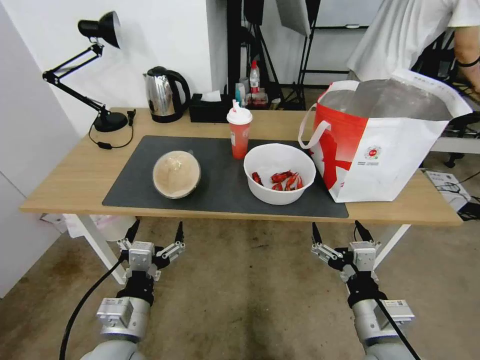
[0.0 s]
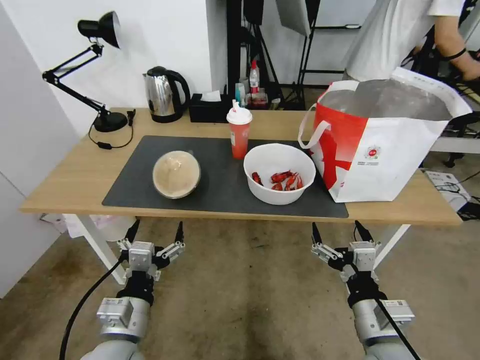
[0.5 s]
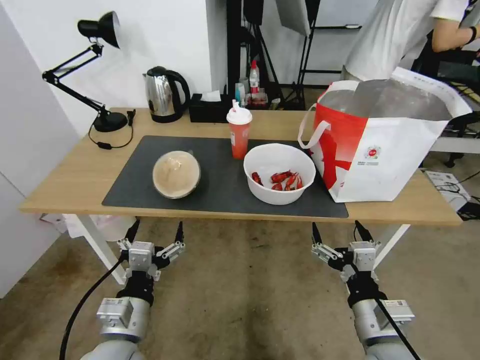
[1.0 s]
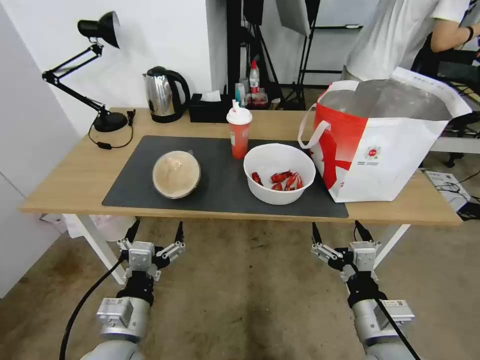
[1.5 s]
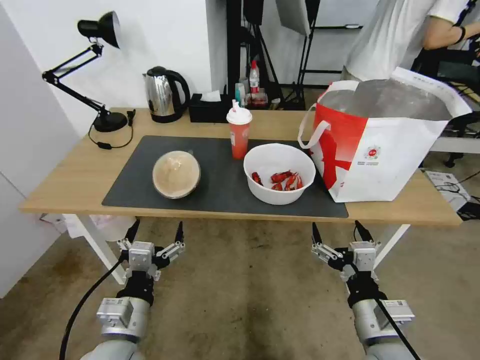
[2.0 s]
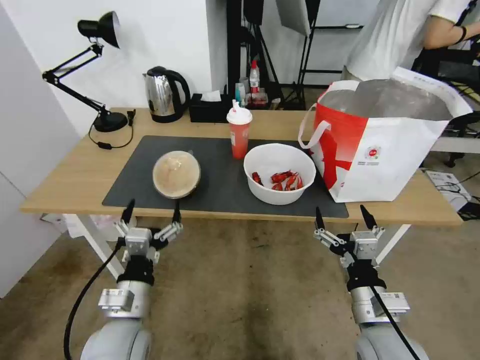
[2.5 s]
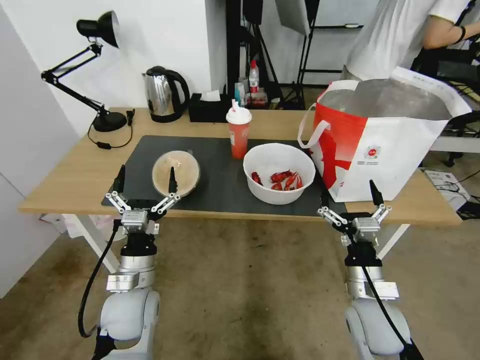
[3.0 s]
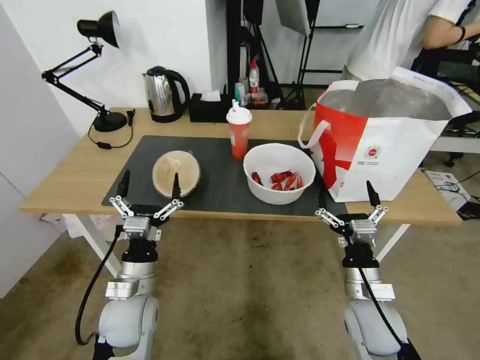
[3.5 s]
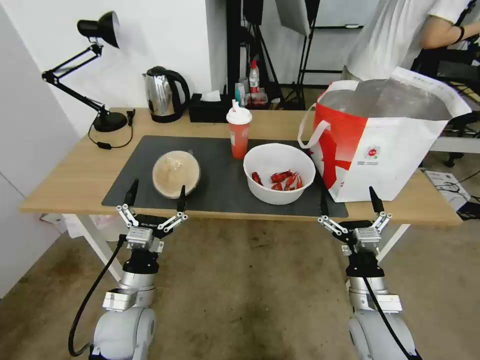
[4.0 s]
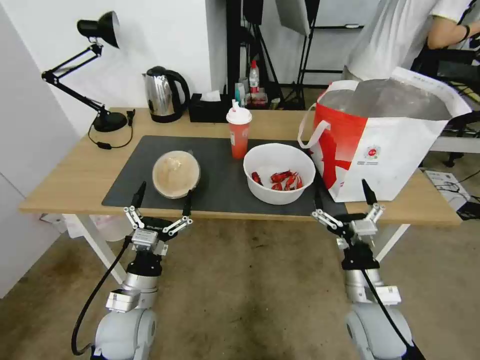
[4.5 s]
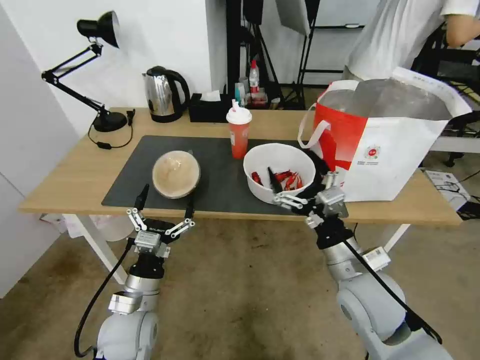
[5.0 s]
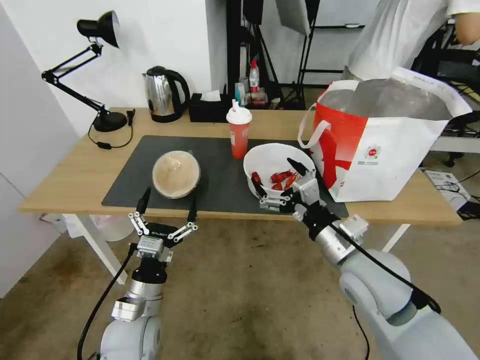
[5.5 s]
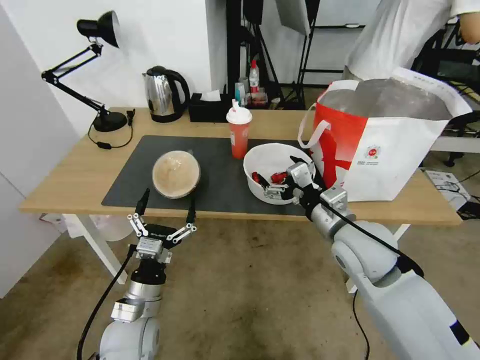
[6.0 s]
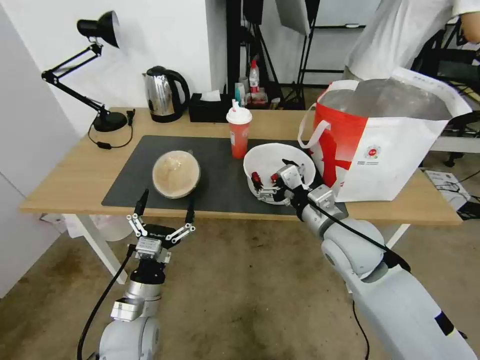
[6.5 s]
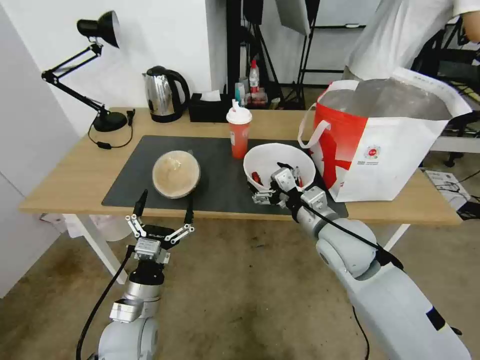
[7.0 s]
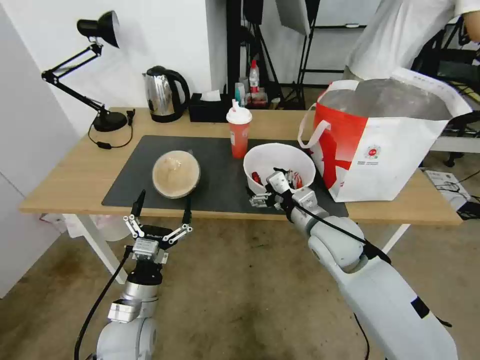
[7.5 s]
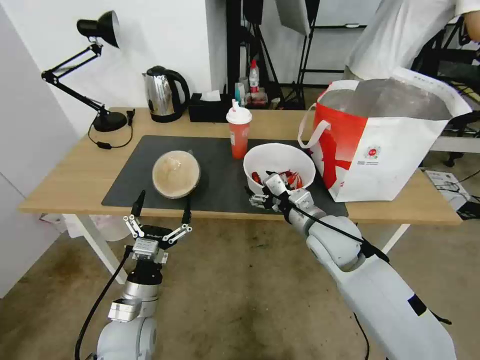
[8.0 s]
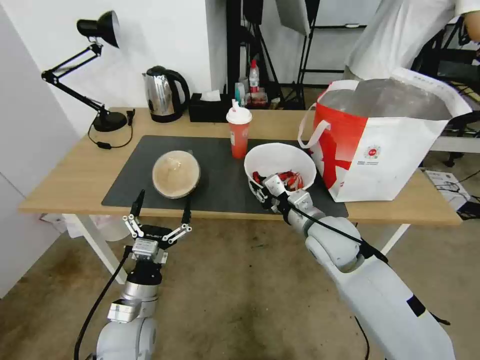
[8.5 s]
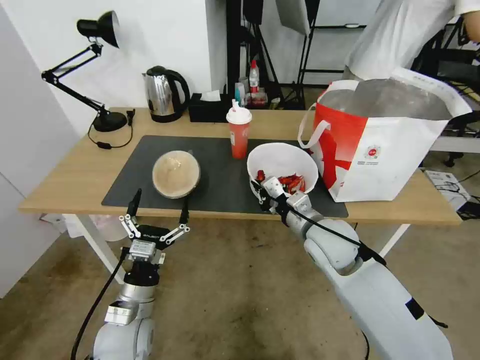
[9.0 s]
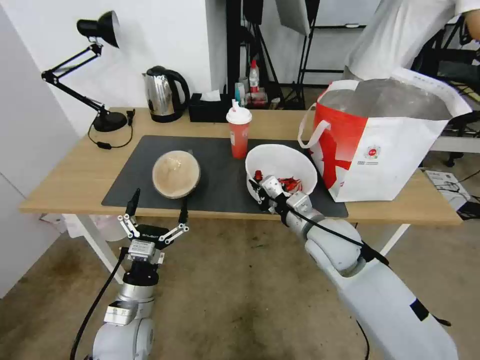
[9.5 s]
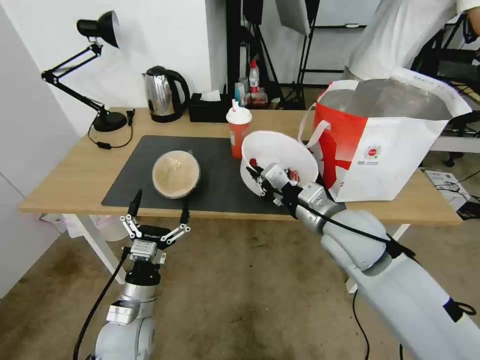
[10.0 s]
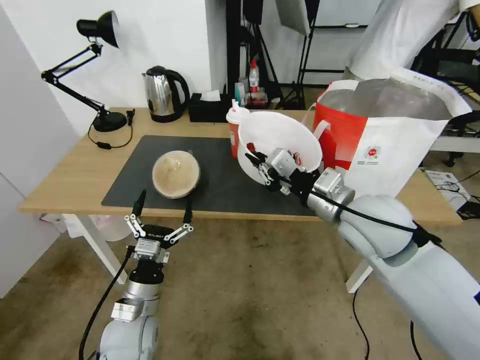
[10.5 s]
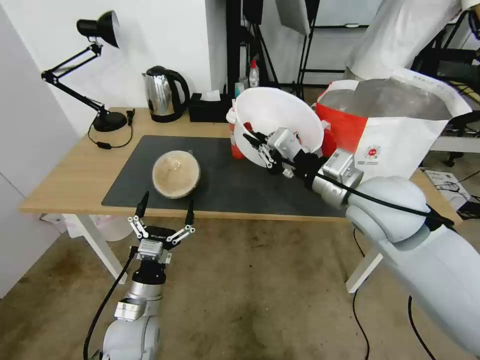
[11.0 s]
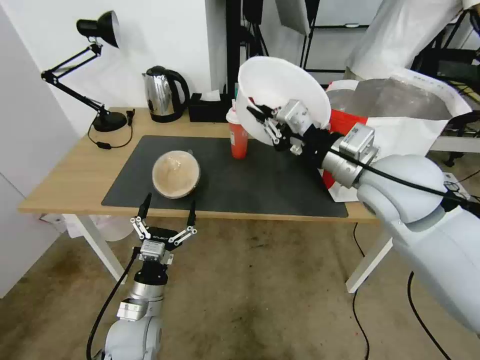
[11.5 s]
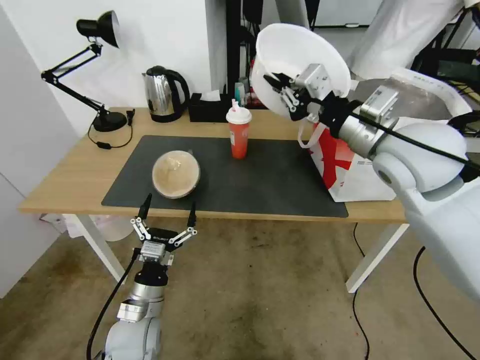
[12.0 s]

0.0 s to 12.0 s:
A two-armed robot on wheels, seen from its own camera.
Task of the whole recording: Pick up the trash from the table and place it into the takeout bag.
2.0 to 4.0 s: The left gripper moves forward, roughly 5 cm. Meanwhile the right gripper goes approximately 10 cm forward and downward.
4.0 to 6.0 s: The right gripper is displaced upward and forward by roughly 20 cm.
6.0 to 8.0 s: The right gripper moves approximately 5 cm.
8.0 to 10.0 s: The right gripper heads upward, covering some 5 cm, and closes its fingers.
10.0 to 12.0 s: The right gripper moves upward, some 15 cm.

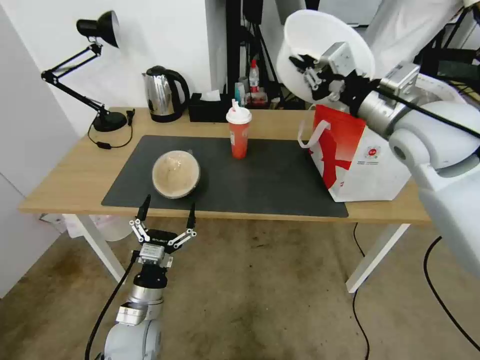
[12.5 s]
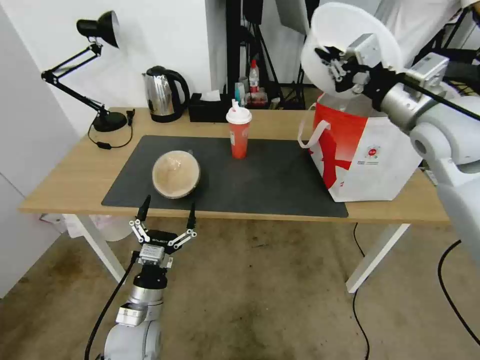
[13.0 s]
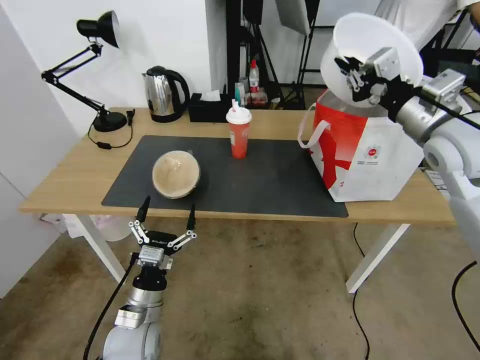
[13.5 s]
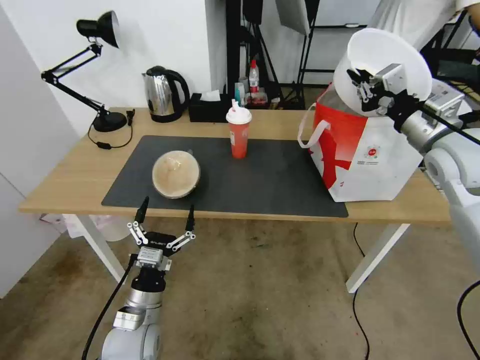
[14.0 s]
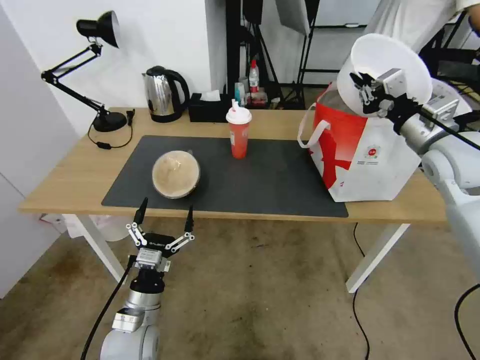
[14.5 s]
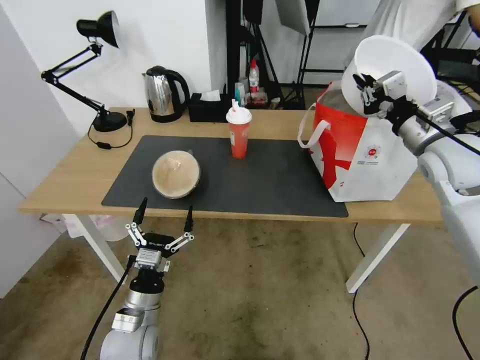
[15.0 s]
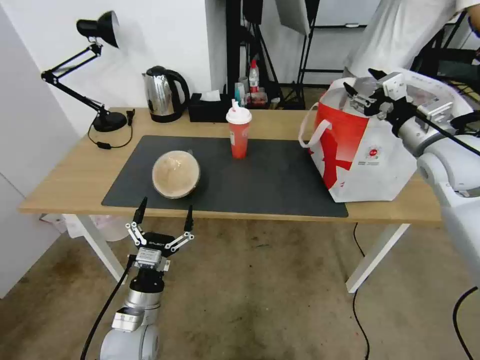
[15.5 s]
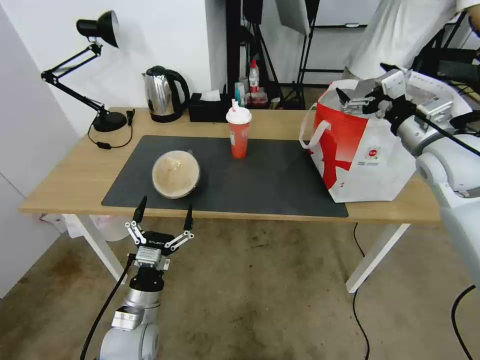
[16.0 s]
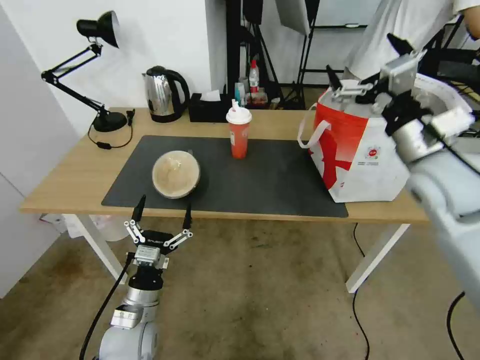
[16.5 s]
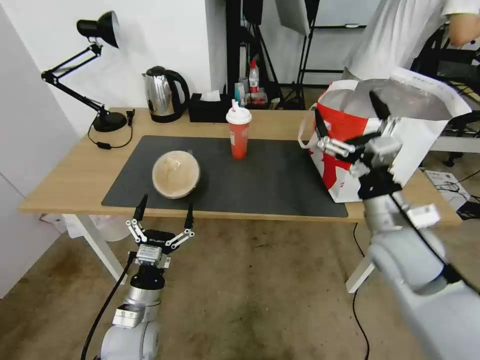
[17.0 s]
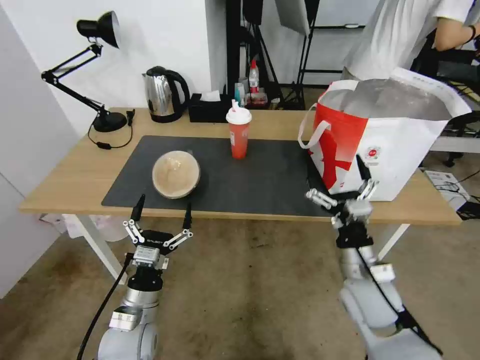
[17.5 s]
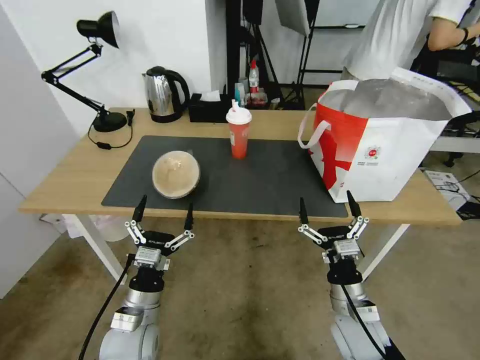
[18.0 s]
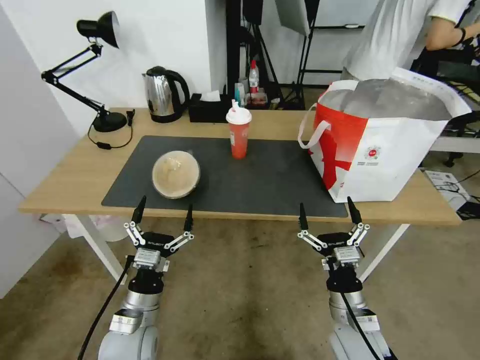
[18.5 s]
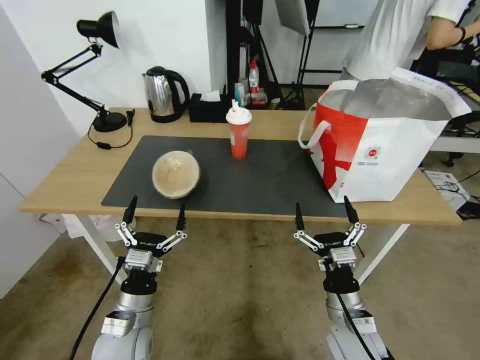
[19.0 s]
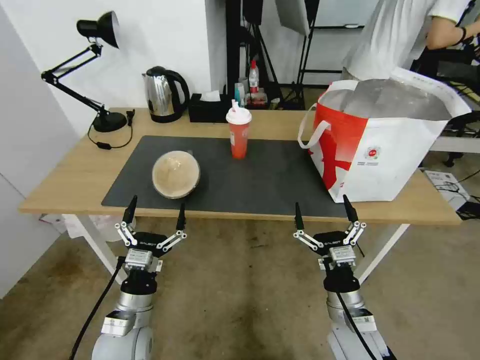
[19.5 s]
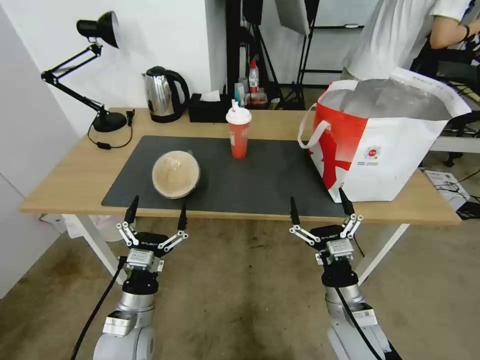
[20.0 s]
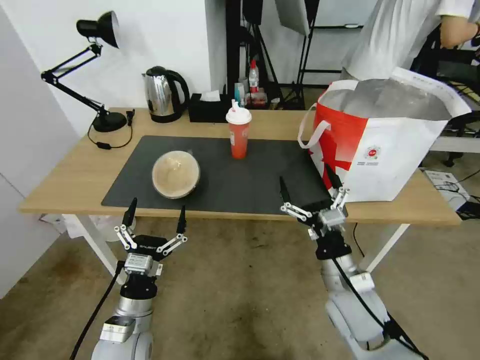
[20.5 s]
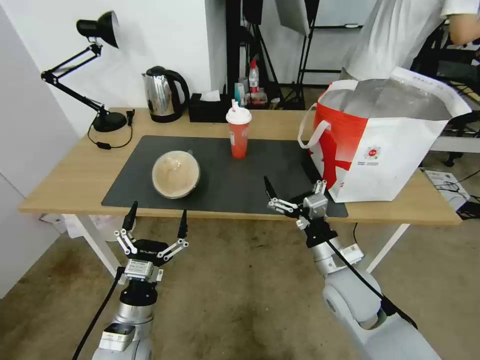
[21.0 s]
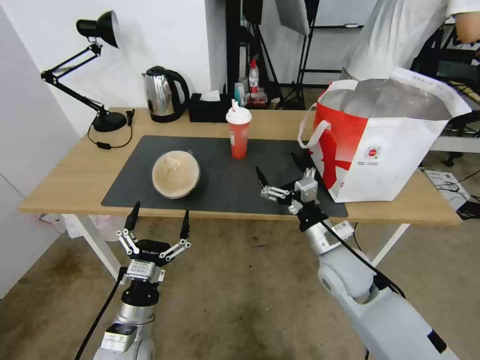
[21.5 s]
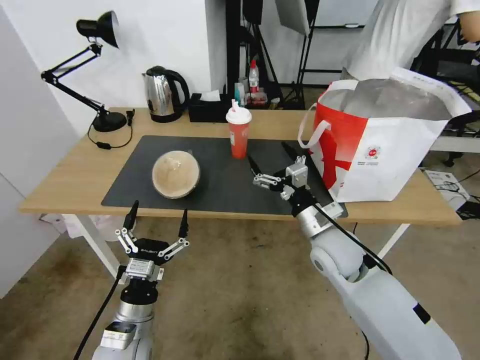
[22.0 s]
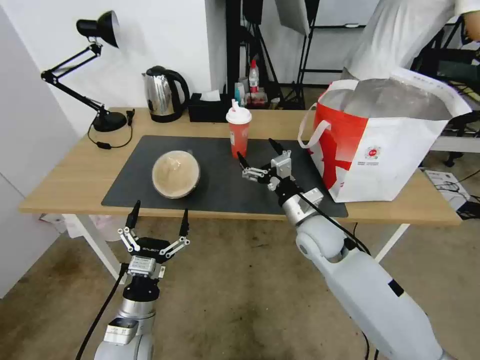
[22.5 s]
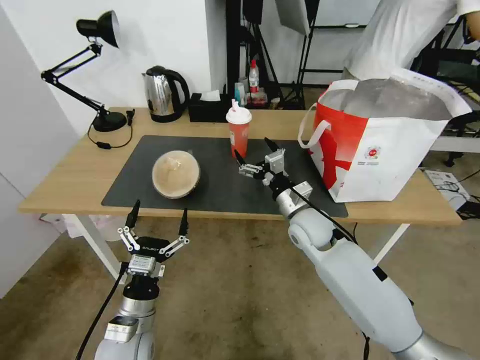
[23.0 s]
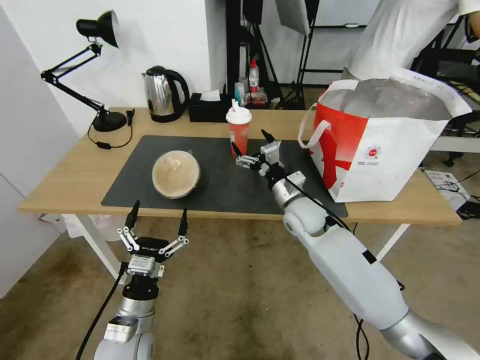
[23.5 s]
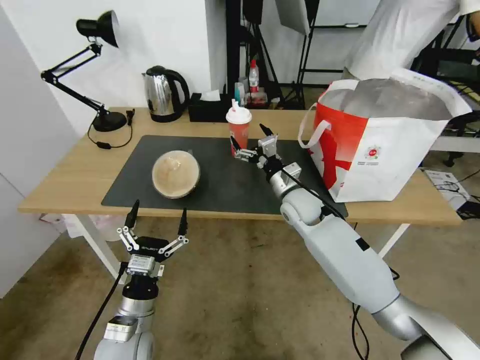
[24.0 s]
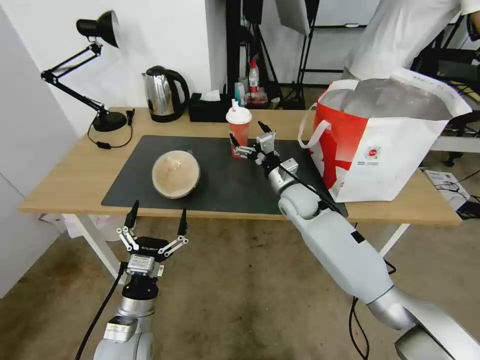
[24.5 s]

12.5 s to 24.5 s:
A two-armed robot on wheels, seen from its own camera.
Task of the whole recording: Pick up the trash from the table and place it into the takeout bag.
12.5 to 14.5 s: The right gripper travels to the right and downward by roughly 10 cm.
14.5 to 16.5 s: The right gripper goes roughly 10 cm to the left and backward, and opens up.
16.5 to 18.5 s: The right gripper goes roughly 35 cm downward and backward.
18.5 to 20.5 s: The right gripper travels upward by some 5 cm.
20.5 to 22.5 s: The right gripper goes roughly 15 cm forward.
22.5 to 24.5 s: The right gripper moves forward, about 10 cm.

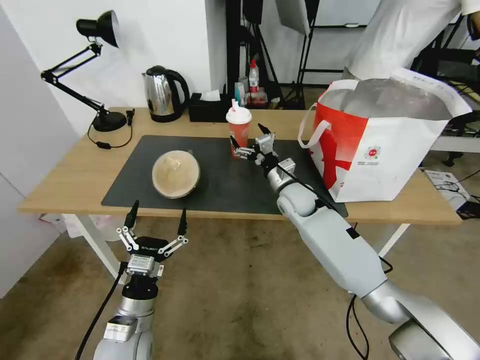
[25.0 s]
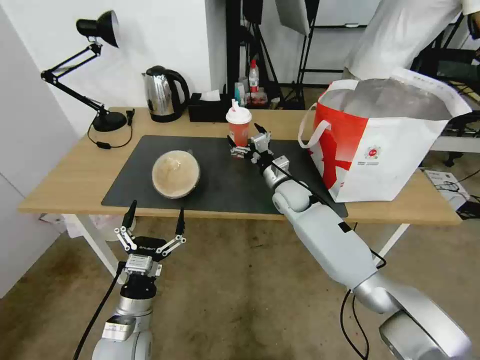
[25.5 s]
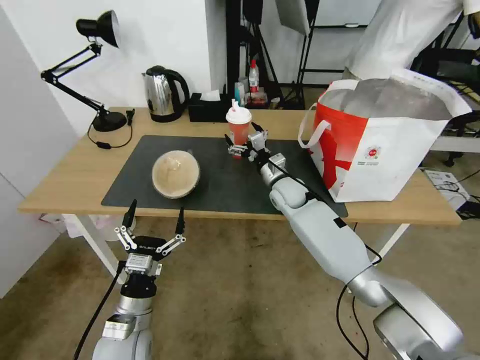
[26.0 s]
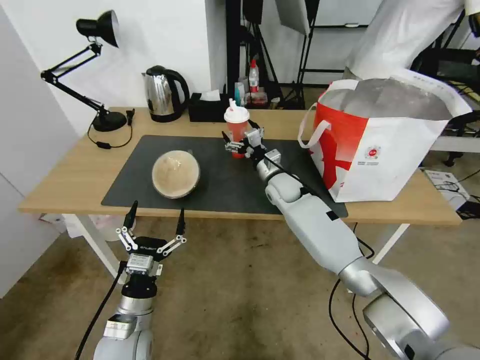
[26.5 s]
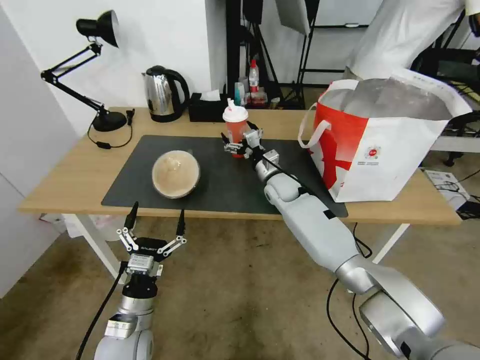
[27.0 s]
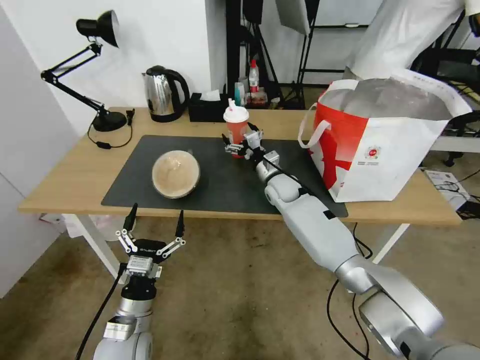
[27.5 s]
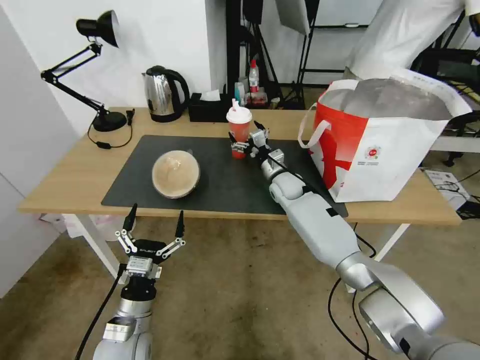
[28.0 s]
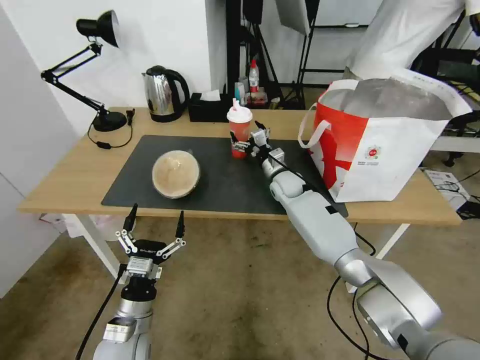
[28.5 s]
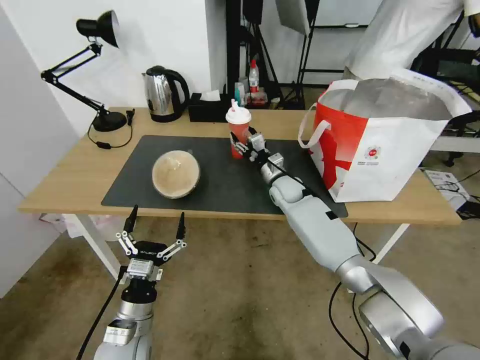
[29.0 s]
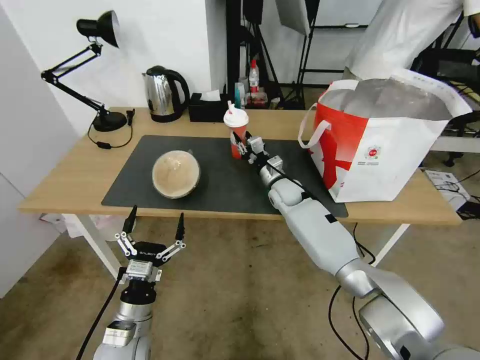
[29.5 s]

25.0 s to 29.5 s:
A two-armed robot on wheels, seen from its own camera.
Task of the whole recording: Pick up the trash from the table and place it into the takeout bag.
25.0 to 27.0 s: The right gripper is displaced forward by approximately 5 cm.
27.0 to 29.5 s: The right gripper closes up.
